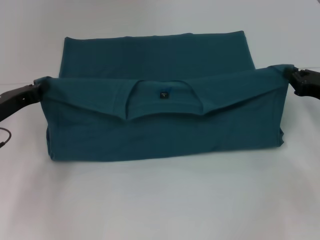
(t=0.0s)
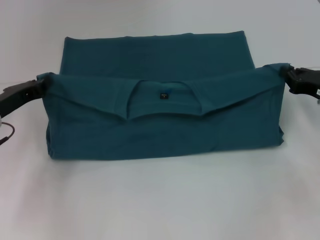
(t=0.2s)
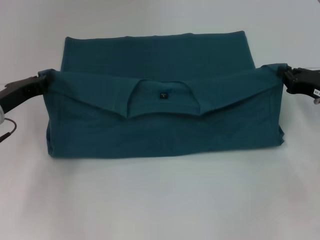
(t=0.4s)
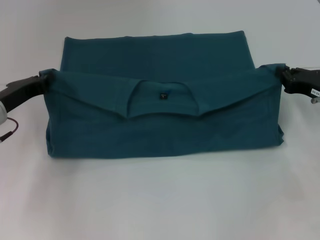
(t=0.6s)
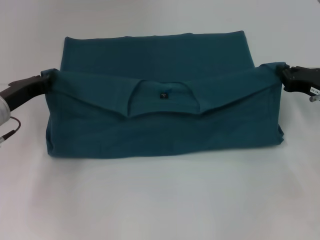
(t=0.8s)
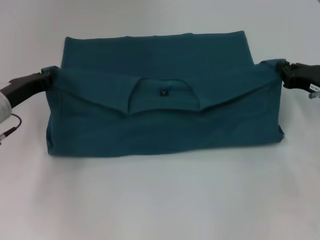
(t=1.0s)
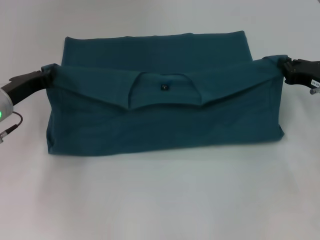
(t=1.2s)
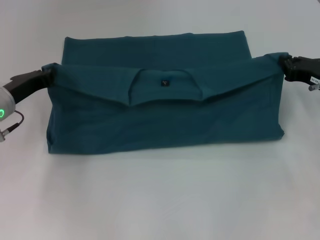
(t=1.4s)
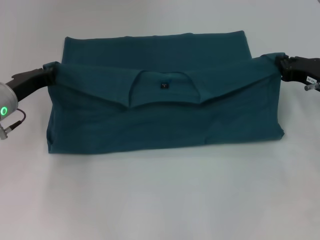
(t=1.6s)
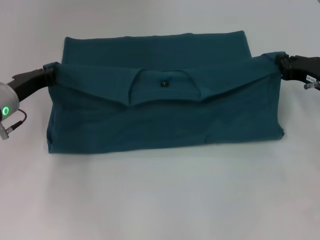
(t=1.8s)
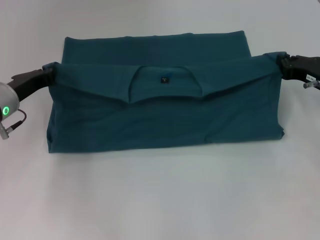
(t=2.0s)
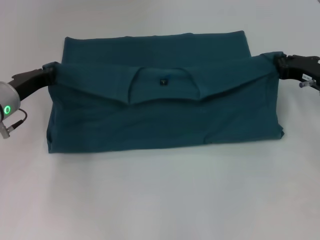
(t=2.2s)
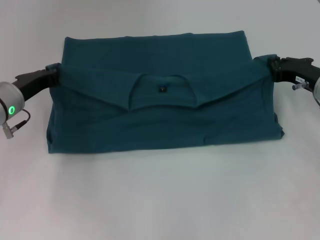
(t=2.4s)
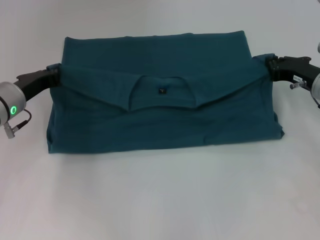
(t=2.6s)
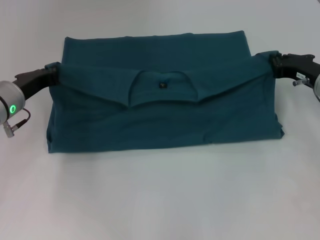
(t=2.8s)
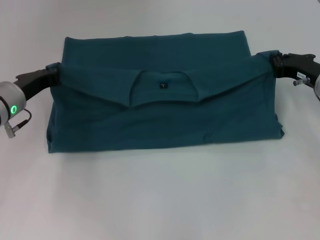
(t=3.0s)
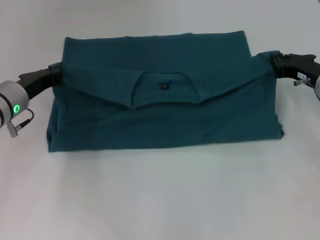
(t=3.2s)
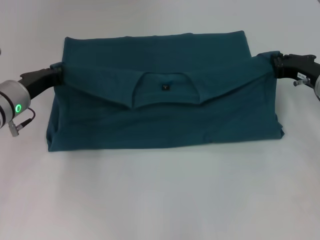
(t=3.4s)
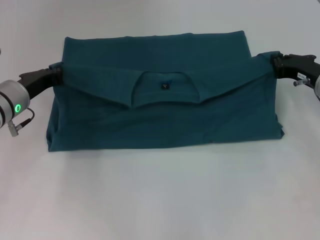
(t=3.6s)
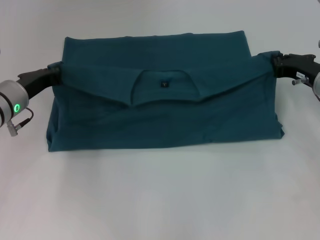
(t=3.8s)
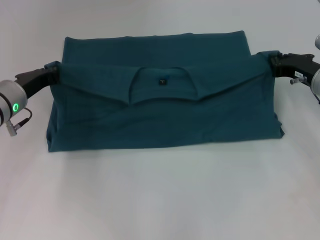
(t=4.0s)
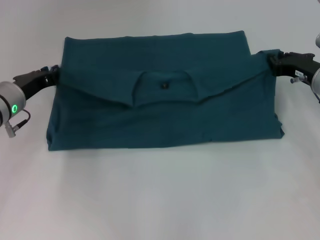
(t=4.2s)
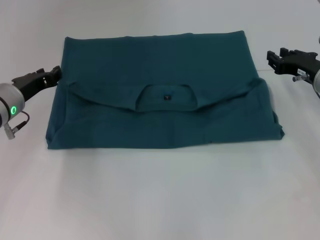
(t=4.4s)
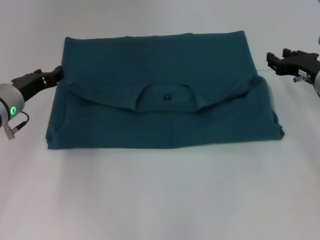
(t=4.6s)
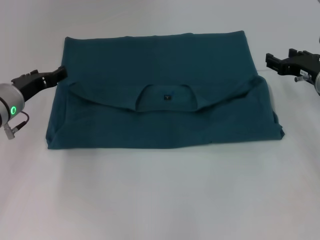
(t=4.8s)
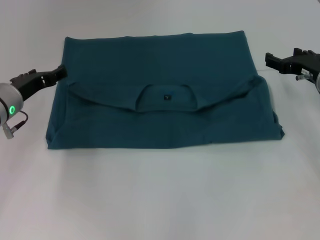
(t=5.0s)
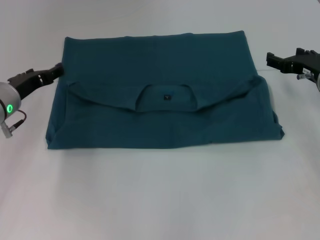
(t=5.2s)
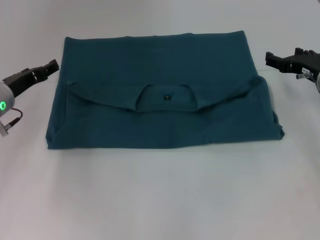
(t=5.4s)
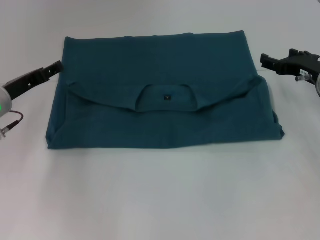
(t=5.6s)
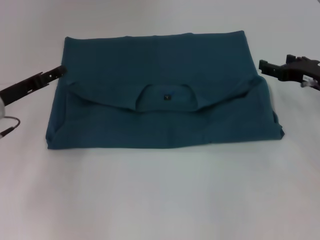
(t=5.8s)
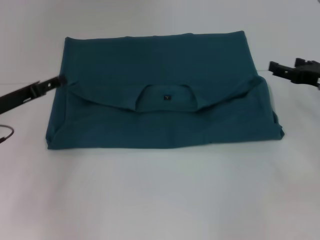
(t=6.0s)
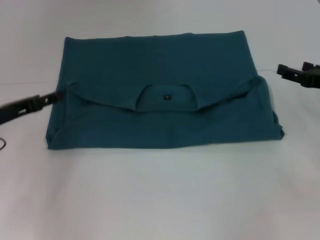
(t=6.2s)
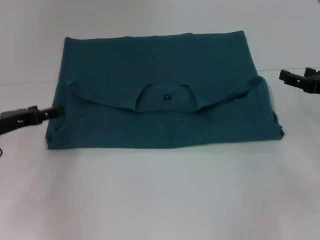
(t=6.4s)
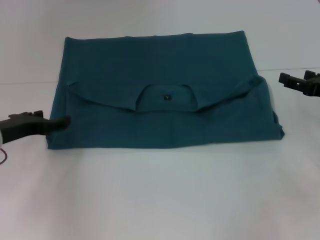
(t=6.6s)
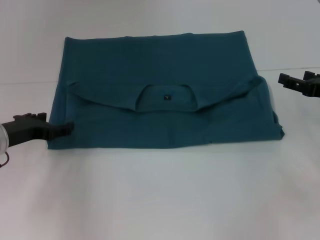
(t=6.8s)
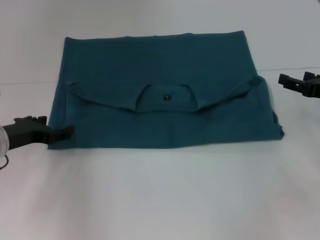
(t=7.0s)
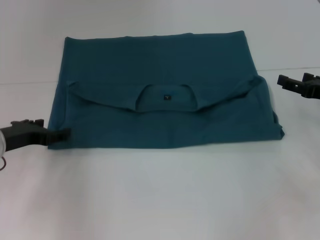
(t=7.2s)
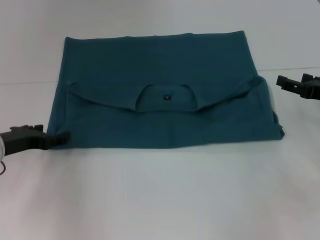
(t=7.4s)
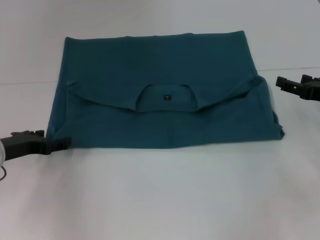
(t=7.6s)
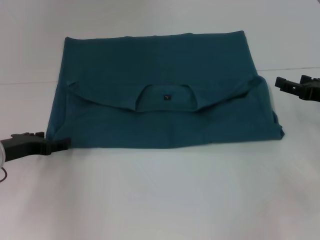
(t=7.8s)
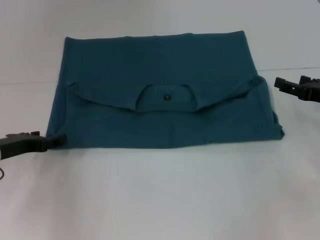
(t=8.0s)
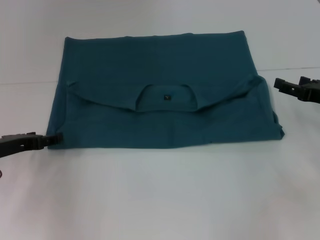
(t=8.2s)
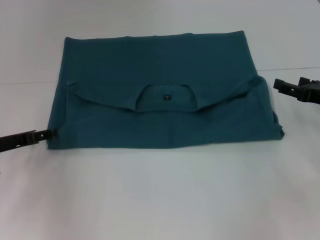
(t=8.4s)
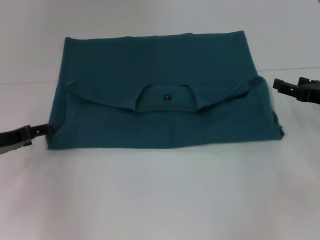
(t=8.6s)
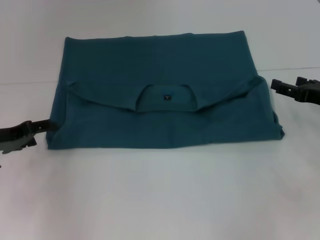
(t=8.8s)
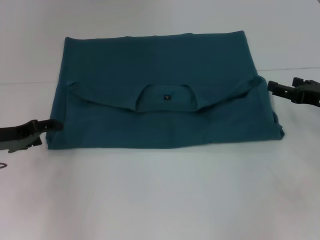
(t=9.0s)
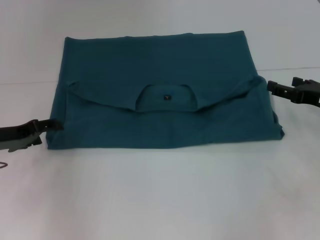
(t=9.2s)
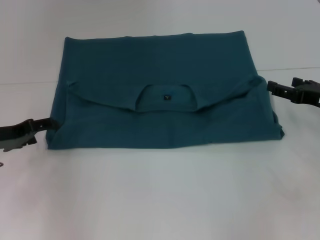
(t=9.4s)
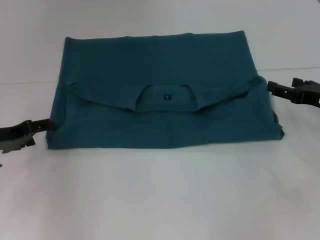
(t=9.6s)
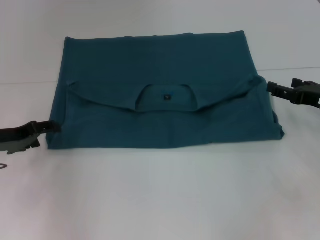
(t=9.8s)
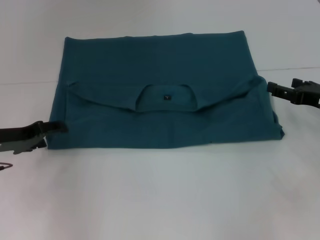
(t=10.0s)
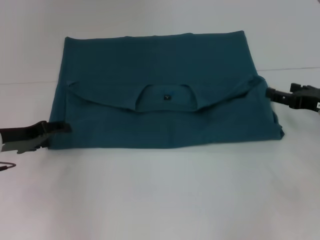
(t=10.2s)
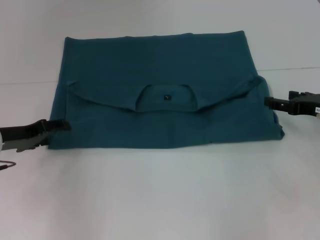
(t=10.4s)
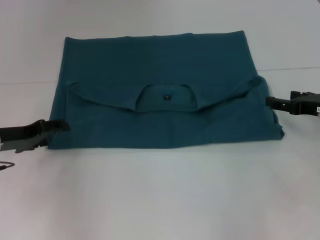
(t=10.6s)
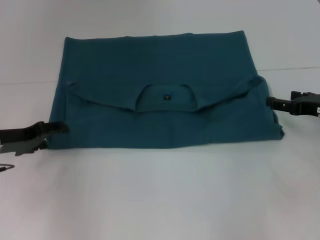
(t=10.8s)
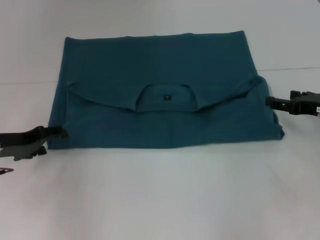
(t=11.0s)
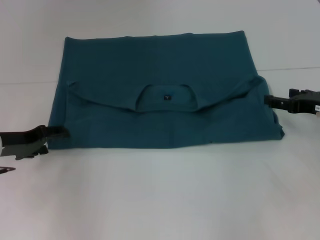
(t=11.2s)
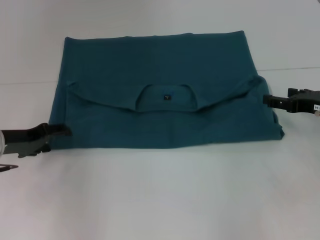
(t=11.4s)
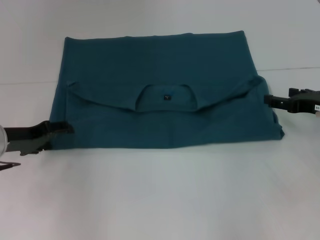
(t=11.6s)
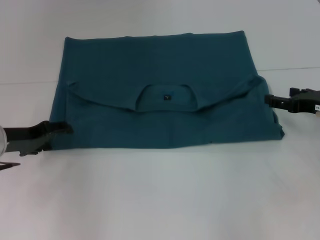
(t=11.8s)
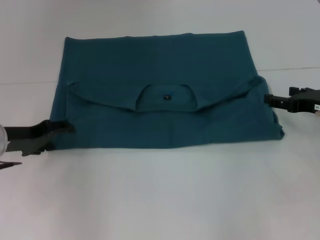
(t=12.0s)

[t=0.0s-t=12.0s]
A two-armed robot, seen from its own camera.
Step, t=0.0s to t=4.8s: Fold the clothes to the left.
Step, t=0.0s to t=4.8s: Fold the clothes to the right.
t=0.0s to t=1.6s: The left gripper shifts by roughly 5 cm.
t=1.6s to t=3.0s: The grippers stay close to where they were, moving slightly.
t=3.0s to t=4.4s: Neither gripper changes place.
t=4.4s to t=6.0s: The left gripper changes place by about 5 cm, and opens, while the right gripper shifts by some 5 cm, and opens up.
t=9.0s to t=12.0s: The grippers move only a little.

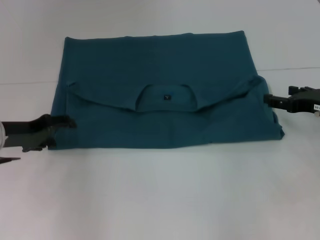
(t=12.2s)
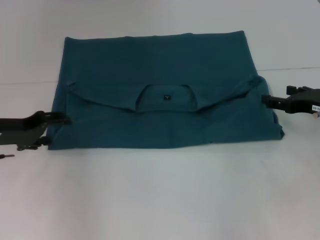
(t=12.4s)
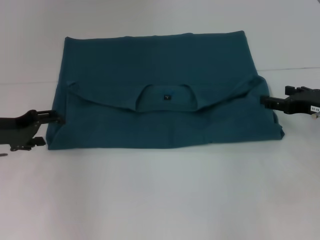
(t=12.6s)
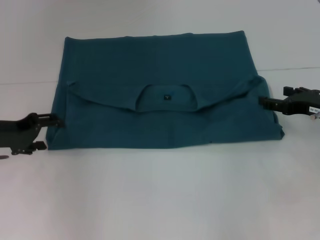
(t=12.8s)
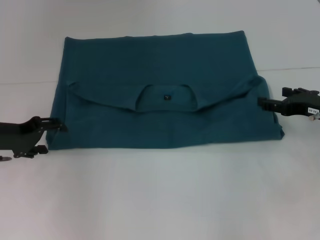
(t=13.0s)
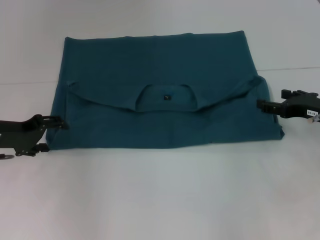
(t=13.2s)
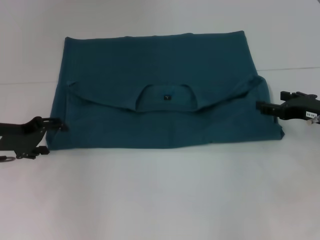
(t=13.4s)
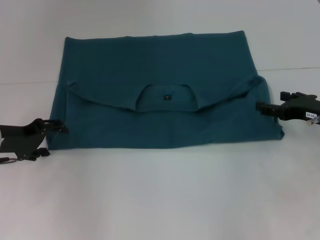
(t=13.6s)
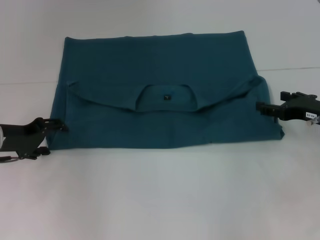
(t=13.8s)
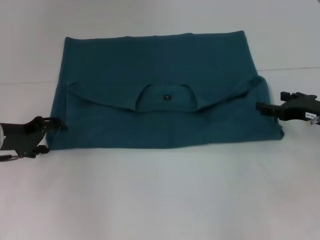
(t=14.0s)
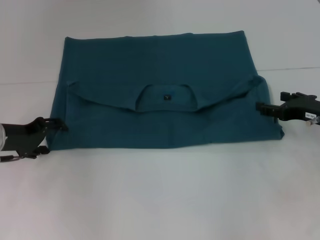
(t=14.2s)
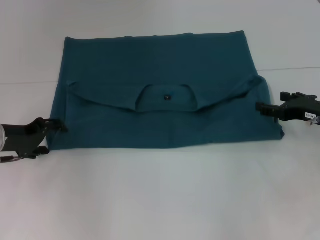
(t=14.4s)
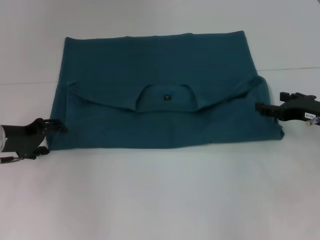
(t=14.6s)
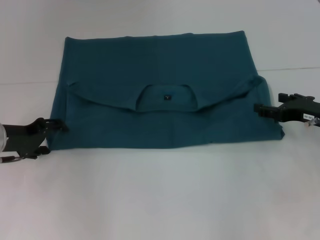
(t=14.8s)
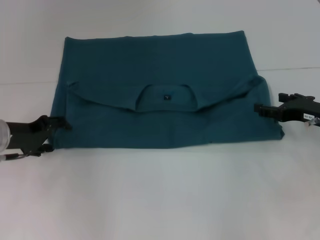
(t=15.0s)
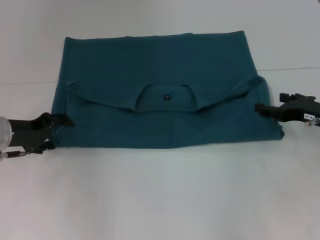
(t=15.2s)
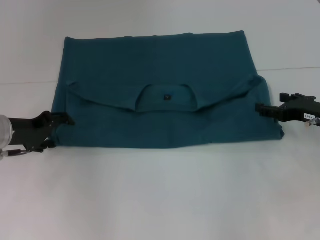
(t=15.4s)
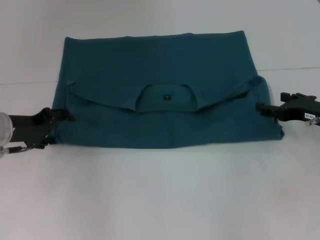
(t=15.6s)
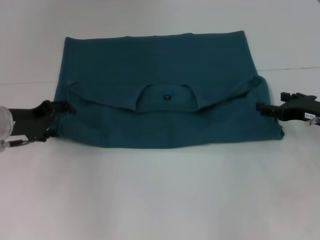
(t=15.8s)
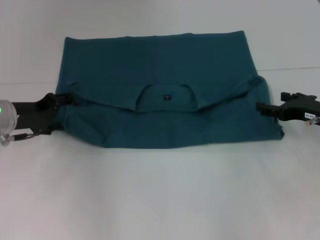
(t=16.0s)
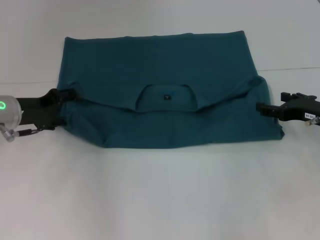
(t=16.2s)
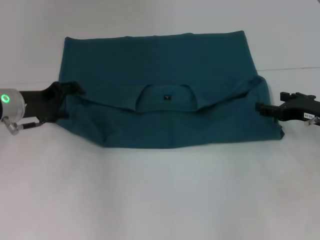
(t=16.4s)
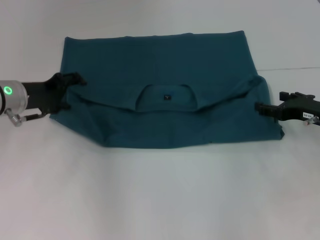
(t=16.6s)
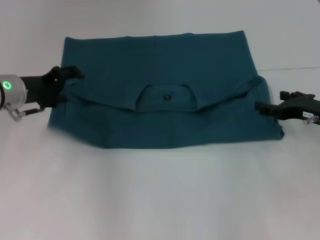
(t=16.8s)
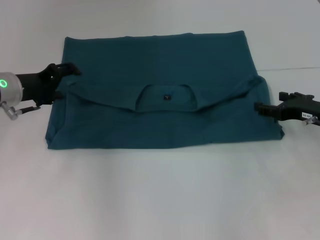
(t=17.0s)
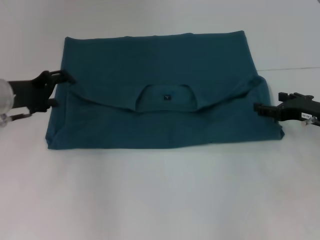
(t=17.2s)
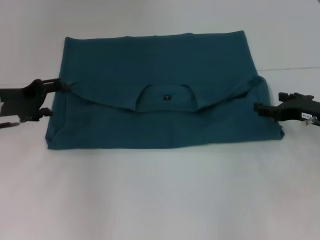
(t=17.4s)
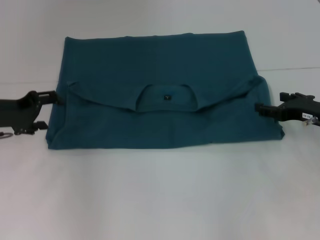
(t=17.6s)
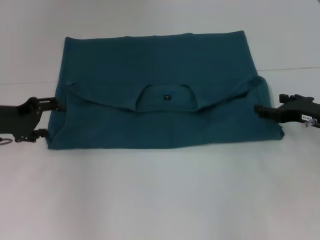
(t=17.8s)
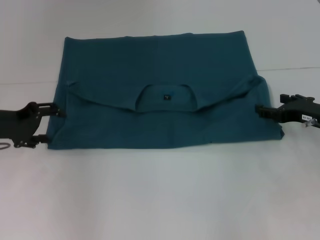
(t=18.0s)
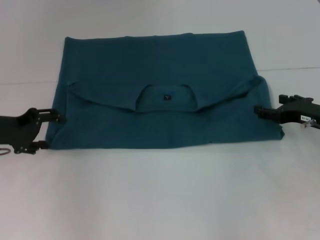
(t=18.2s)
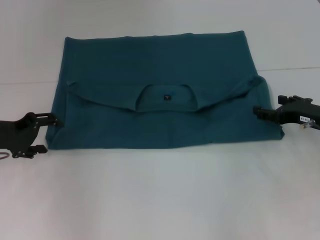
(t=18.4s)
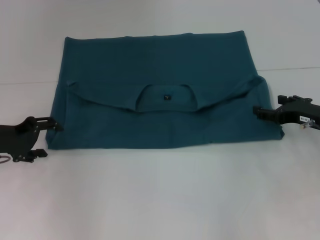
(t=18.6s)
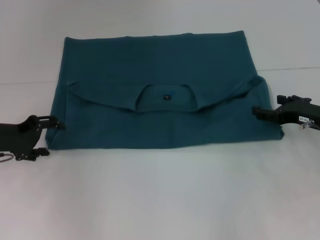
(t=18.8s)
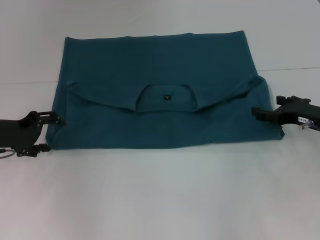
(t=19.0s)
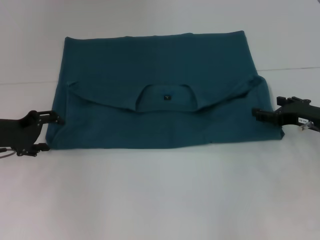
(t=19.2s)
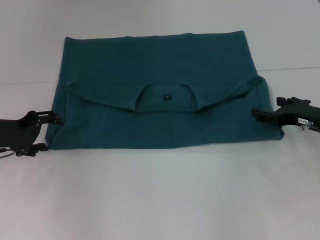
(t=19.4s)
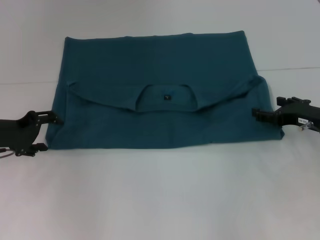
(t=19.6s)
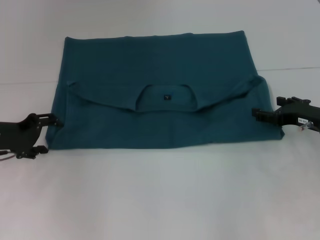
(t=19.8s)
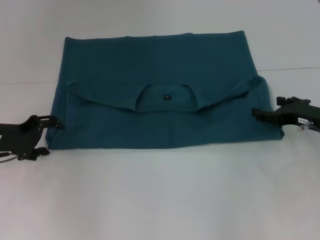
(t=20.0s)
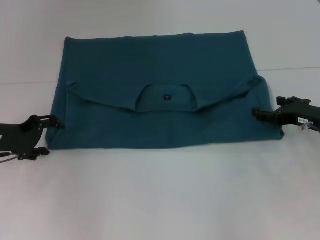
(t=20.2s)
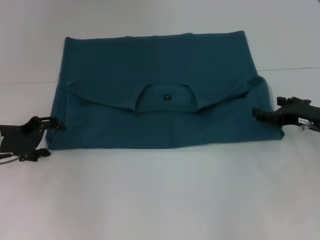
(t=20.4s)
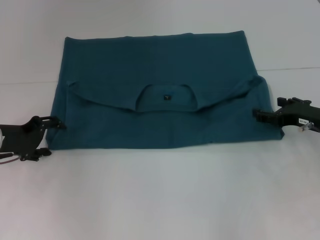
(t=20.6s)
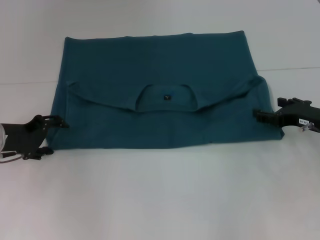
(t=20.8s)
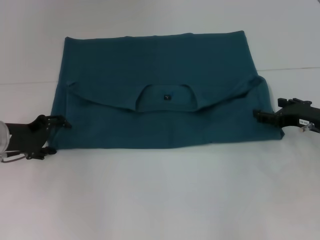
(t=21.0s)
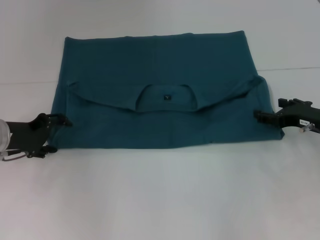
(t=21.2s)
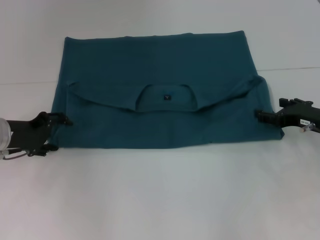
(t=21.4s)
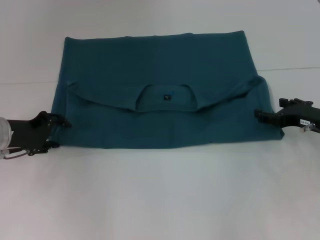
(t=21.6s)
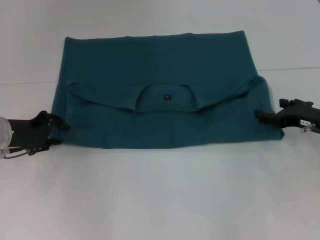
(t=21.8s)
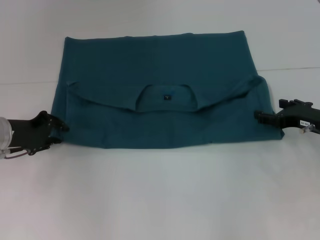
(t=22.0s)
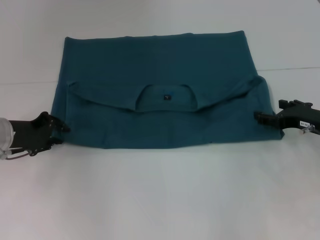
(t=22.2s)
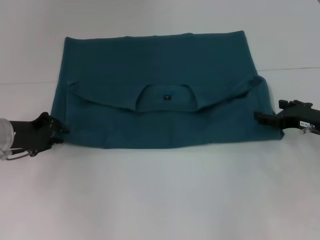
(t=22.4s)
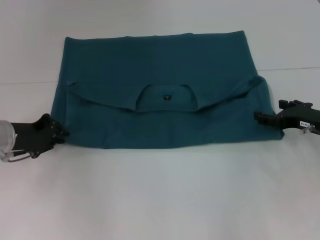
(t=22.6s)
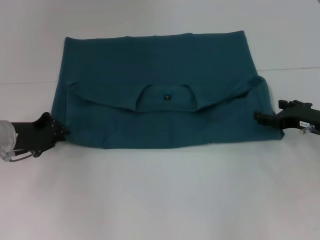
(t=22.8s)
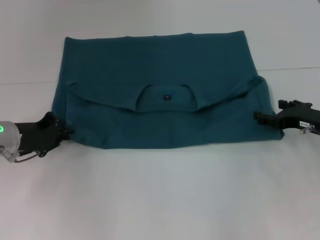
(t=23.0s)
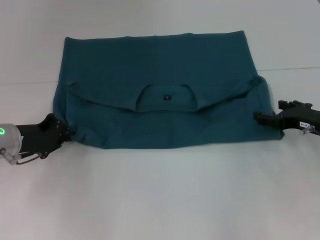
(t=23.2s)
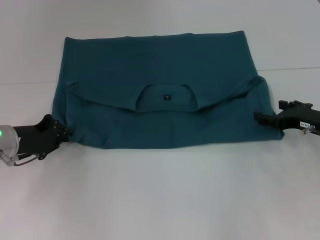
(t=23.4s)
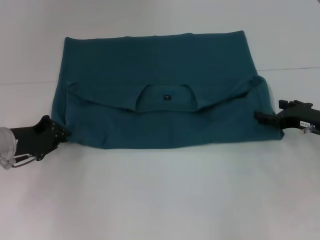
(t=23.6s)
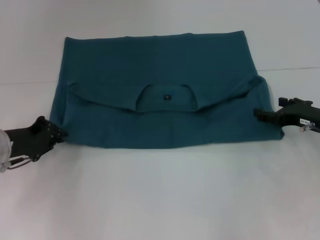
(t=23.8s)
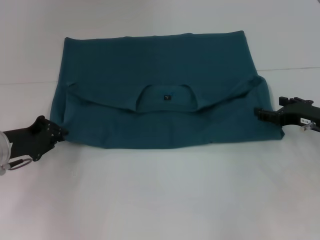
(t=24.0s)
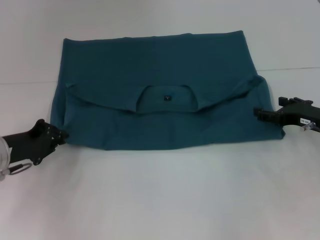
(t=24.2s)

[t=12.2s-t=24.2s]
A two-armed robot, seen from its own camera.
t=12.2s to t=13.8s: There are only small adjustments of the grippers.
t=13.8s to t=15.2s: Both grippers stay about where they are.
t=15.2s to t=16.6s: The left gripper changes place by approximately 5 cm.
t=16.6s to t=18.2s: The left gripper travels to the left by roughly 5 cm.
t=18.2s to t=21.2s: The grippers move only a little.
t=21.2s to t=22.6s: The left gripper closes.
t=22.6s to t=24.2s: There are only small adjustments of the grippers.
